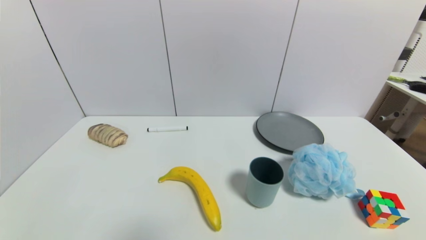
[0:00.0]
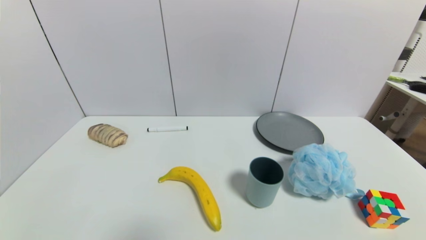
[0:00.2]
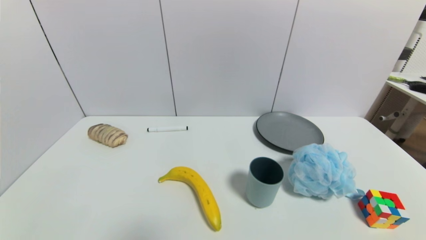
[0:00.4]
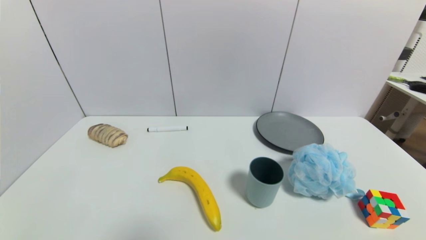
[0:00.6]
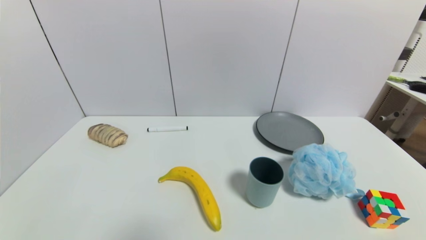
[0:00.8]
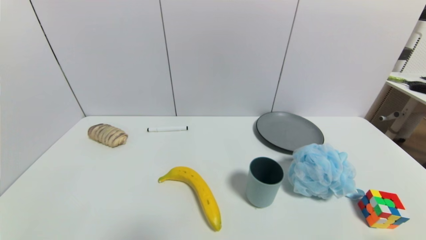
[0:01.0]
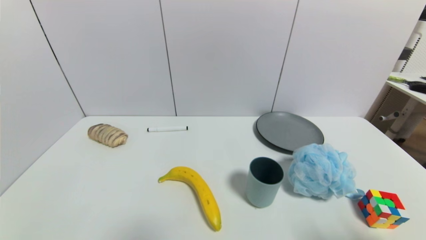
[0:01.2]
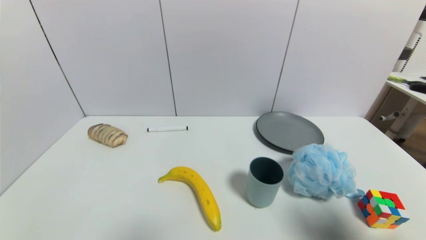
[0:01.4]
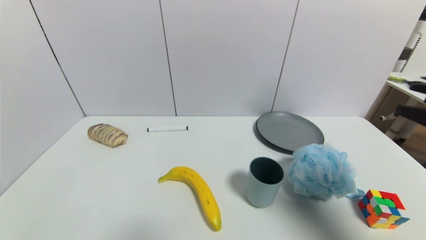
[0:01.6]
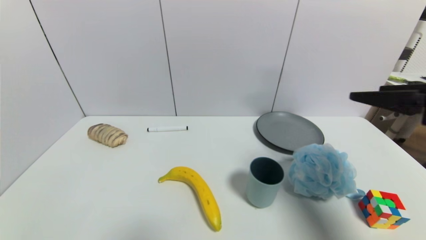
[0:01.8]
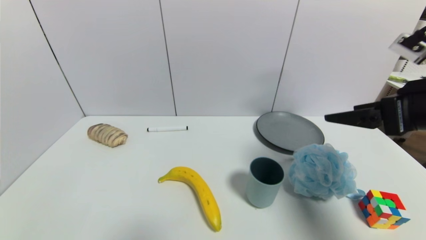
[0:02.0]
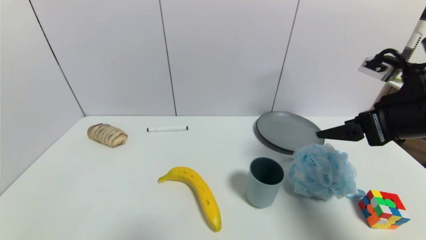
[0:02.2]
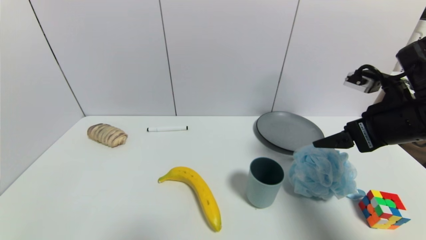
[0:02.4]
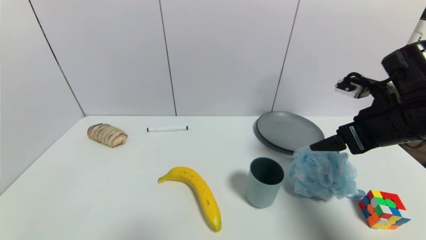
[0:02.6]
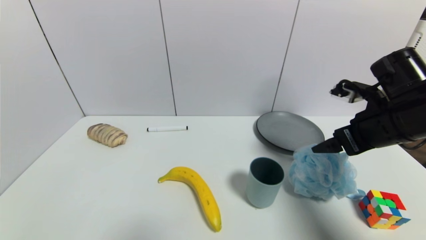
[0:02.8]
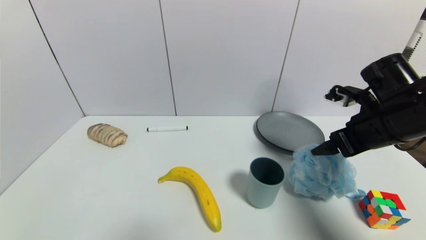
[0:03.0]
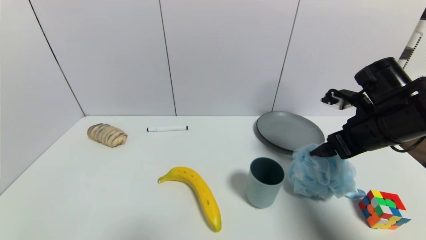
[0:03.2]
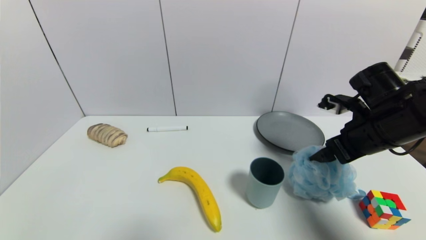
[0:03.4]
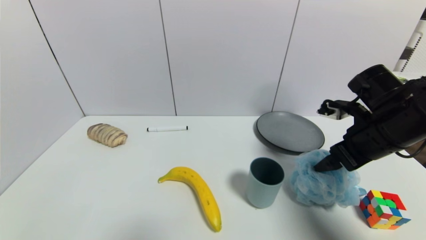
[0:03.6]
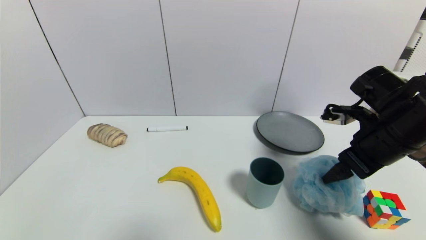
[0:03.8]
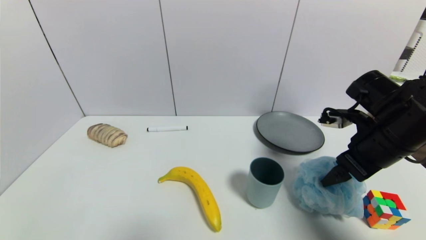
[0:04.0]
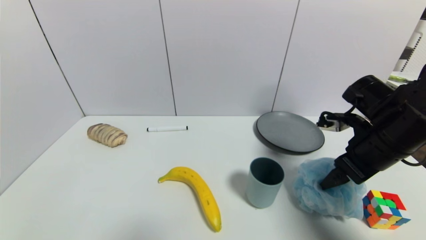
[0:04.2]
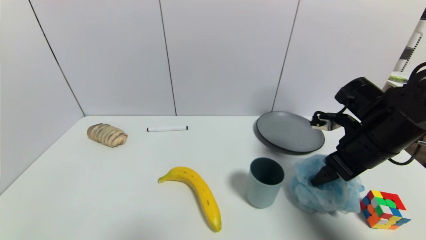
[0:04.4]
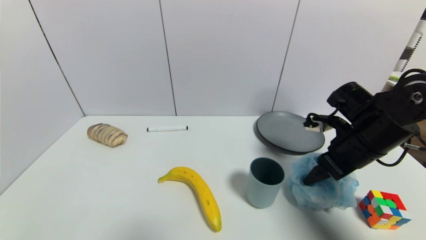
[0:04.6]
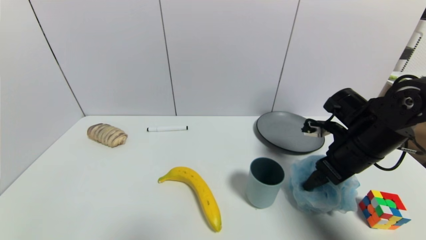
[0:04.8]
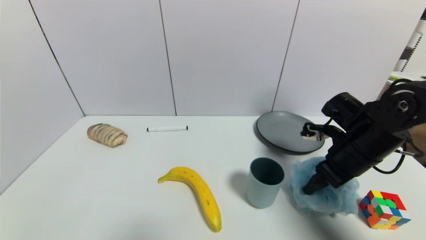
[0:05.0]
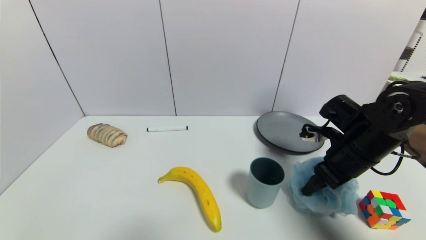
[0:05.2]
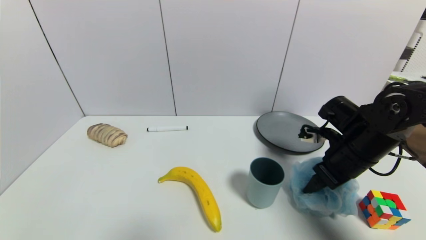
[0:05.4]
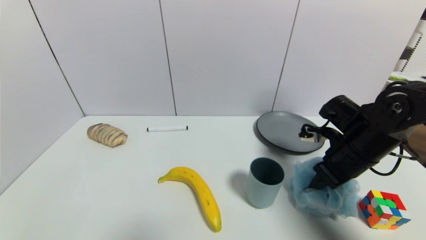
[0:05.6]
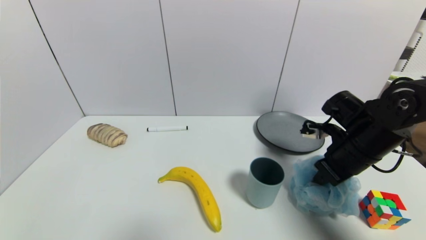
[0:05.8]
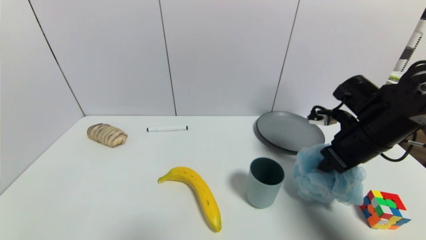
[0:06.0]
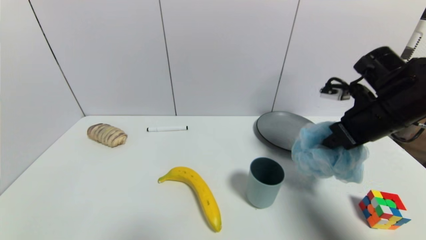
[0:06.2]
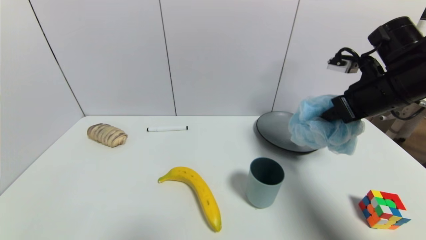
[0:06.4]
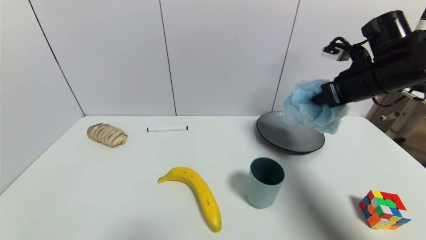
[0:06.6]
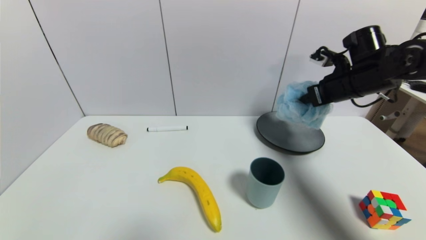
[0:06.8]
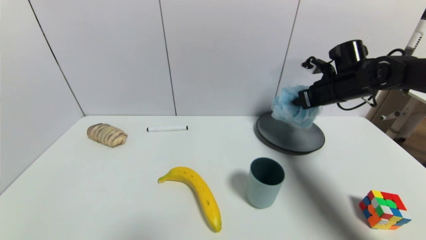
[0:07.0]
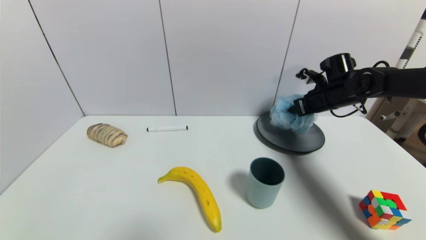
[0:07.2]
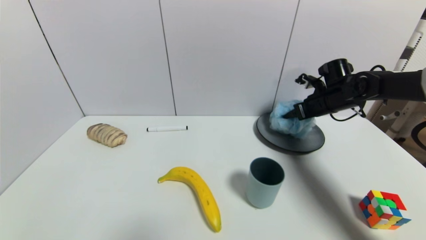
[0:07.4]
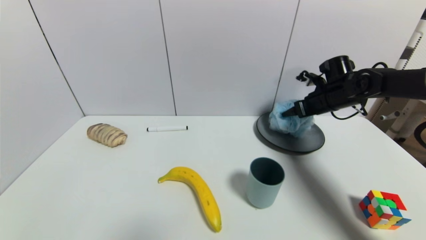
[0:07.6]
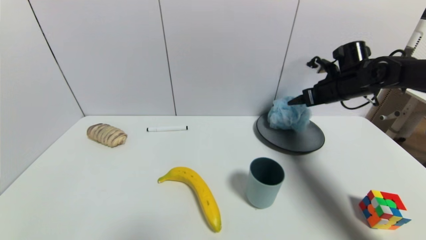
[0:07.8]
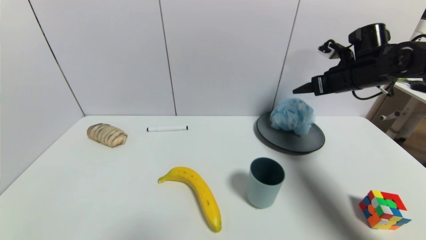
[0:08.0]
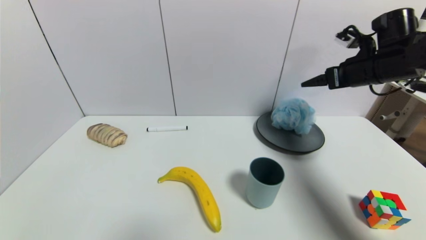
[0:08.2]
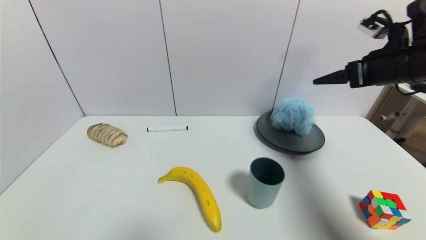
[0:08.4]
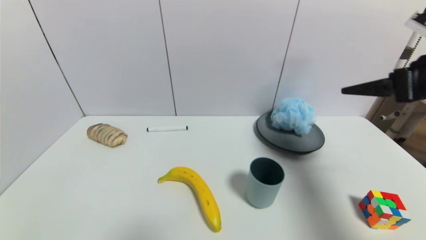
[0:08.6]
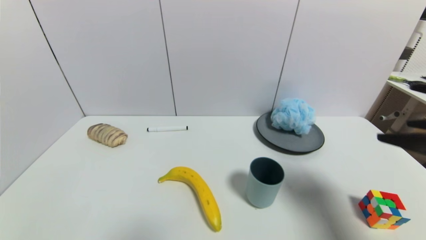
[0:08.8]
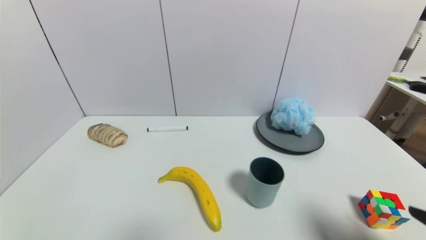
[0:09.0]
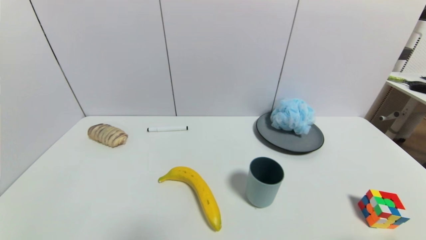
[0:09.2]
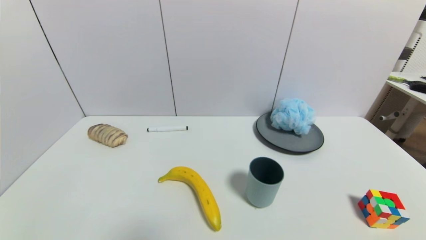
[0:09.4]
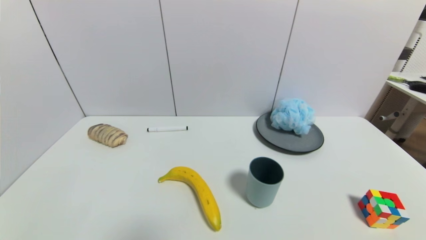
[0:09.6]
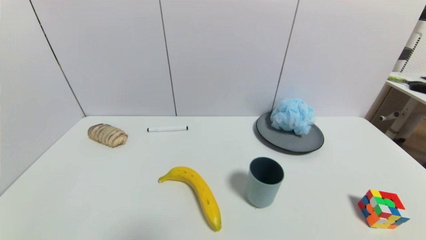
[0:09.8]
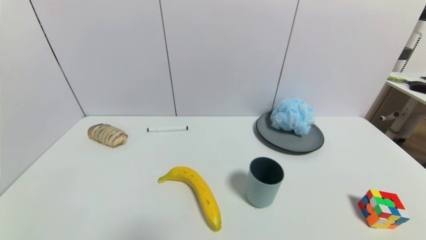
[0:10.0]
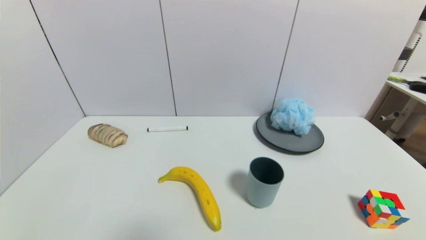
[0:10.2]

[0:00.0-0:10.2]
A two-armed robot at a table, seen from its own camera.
Task of the whole recording: use a gripper to pick the target object and place on the gray plate.
Step, 0:00.0 to 0:05.4: Grasp the shower sphere with the right gripper.
Step, 0:05.6 to 0:07.8: Place the shower sphere on the gray plate with the right gripper.
0:00.0 to 0:01.4: The right gripper moves upward and forward, some 20 cm.
0:01.4 to 0:03.0: The right gripper shifts about 20 cm forward.
0:04.4 to 0:05.8: The right gripper closes its fingers.
0:05.8 to 0:07.2: The right gripper is displaced forward by some 15 cm.
0:07.2 to 0:08.8: The right gripper moves backward, approximately 30 cm, and opens up.
0:08.8 to 0:10.2: The right gripper is displaced downward and backward by some 25 cm.
